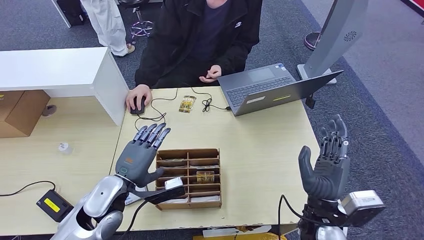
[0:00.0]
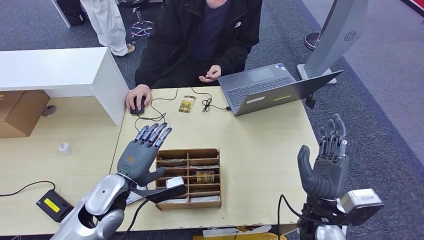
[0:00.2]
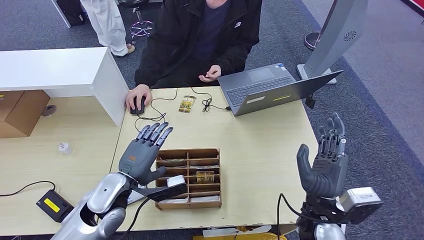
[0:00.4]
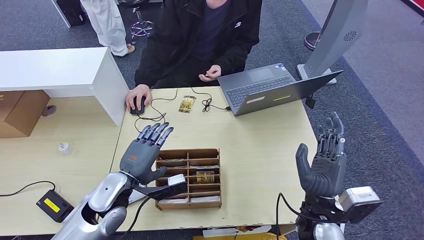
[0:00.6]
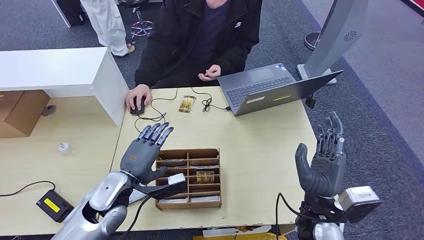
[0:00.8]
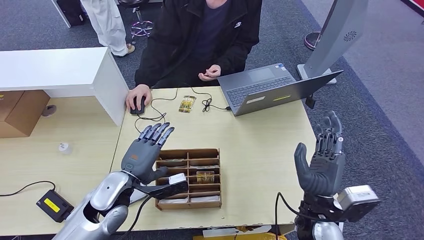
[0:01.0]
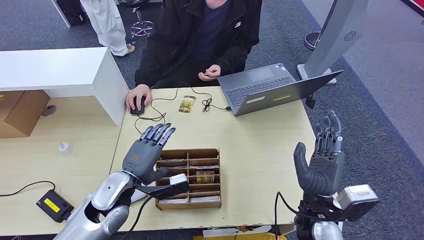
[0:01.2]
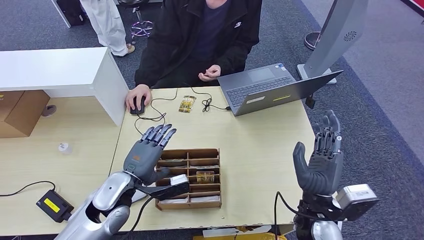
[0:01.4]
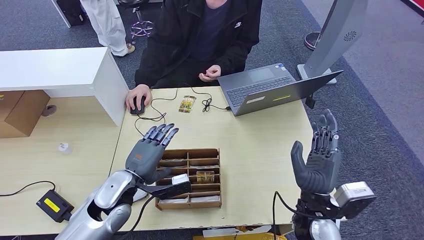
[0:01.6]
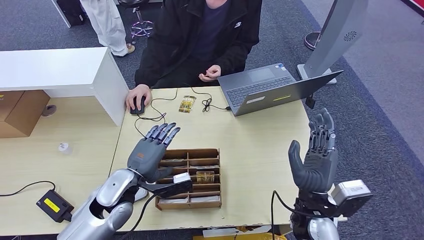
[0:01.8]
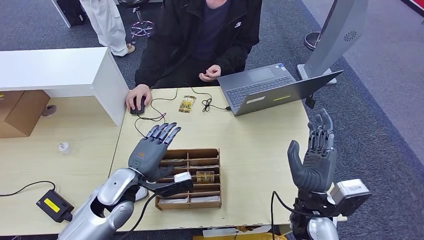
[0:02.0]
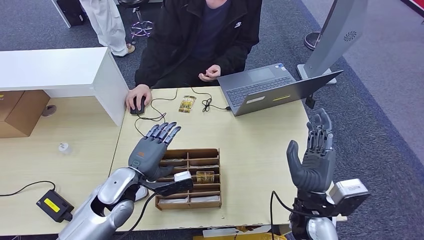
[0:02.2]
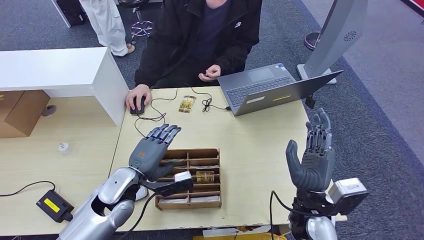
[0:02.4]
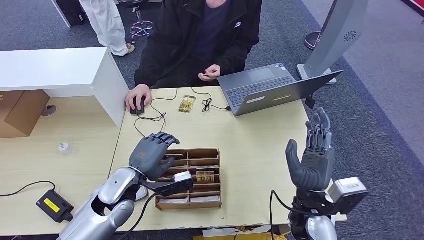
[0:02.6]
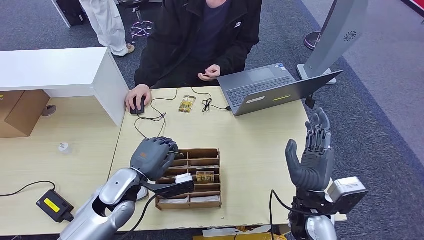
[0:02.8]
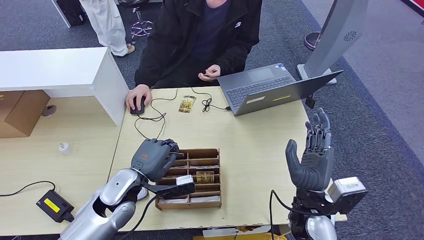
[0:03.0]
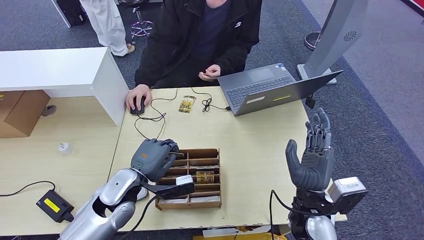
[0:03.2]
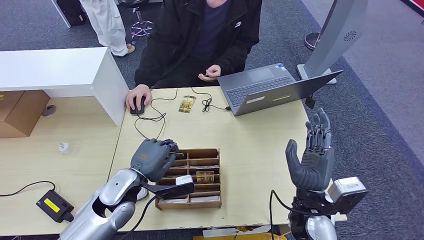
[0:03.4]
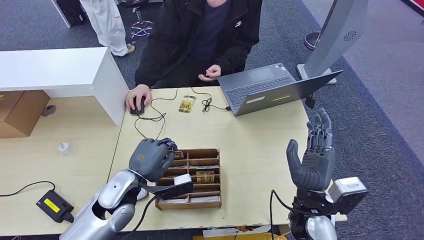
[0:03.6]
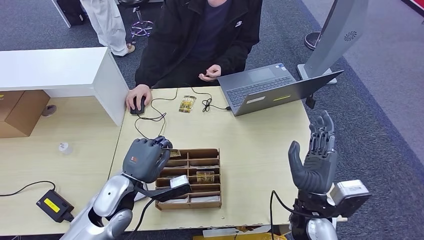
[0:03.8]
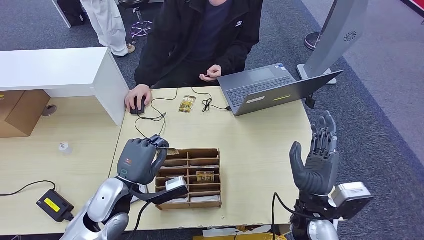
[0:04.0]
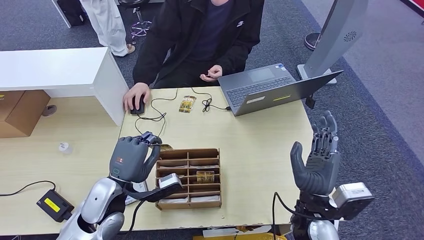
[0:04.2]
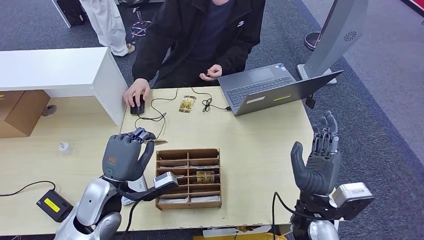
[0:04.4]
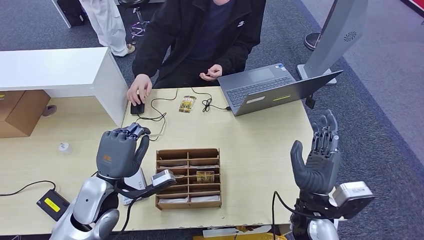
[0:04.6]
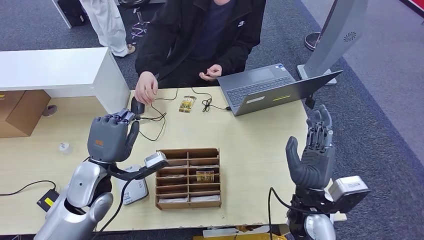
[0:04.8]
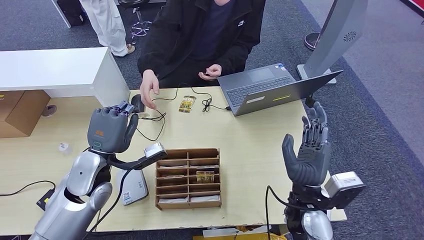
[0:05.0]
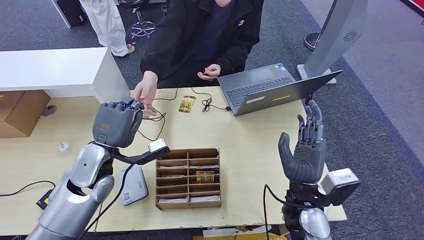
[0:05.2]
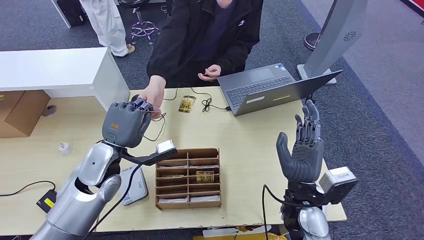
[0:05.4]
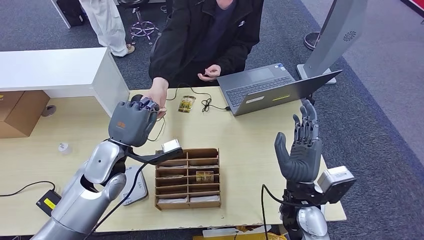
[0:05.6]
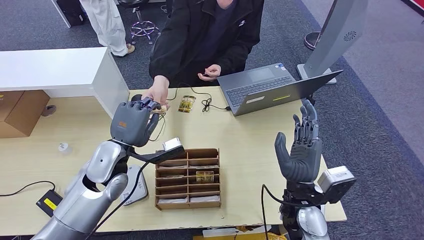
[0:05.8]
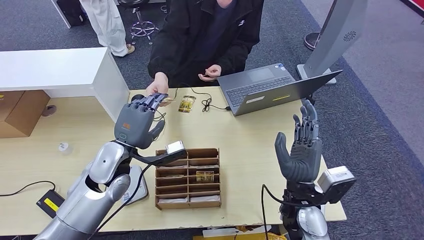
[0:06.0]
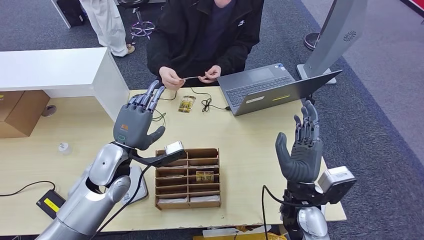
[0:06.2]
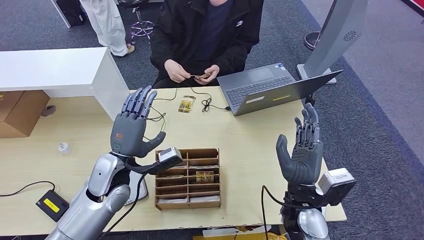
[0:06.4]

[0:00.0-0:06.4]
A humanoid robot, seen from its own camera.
Step, 0:02.0 to 0:04.2: Pick up the room key from the key card box.
Step, 0:05.2 to 0:06.4: Hand the room key to the person.
0:00.0 to 0:01.6: The hands move only a little.
0:01.6 to 0:03.2: Both hands stay put.
0:03.2 to 0:04.8: The left hand goes some 5 cm to the left.
0:04.8 to 0:06.4: The hands move only a little.
